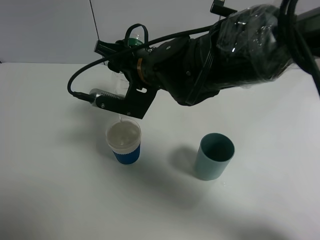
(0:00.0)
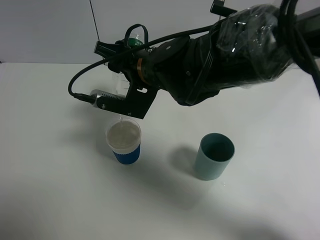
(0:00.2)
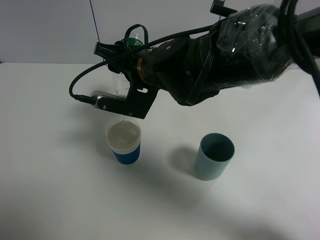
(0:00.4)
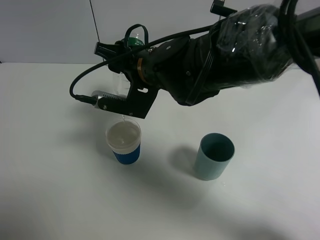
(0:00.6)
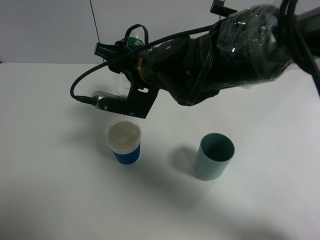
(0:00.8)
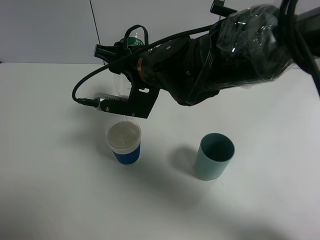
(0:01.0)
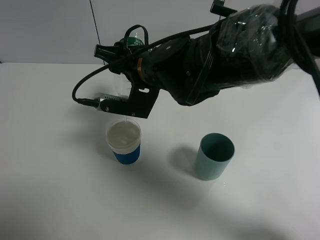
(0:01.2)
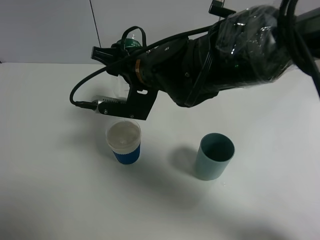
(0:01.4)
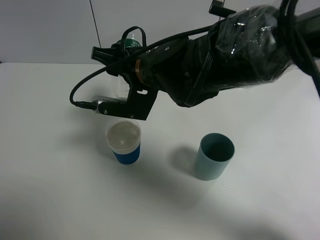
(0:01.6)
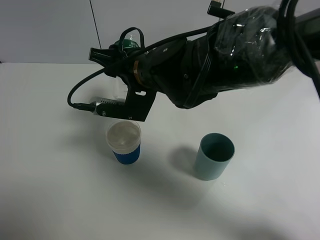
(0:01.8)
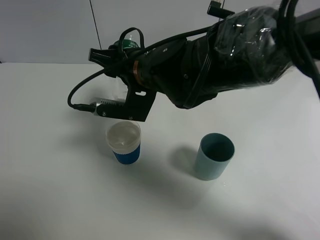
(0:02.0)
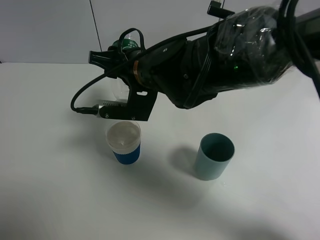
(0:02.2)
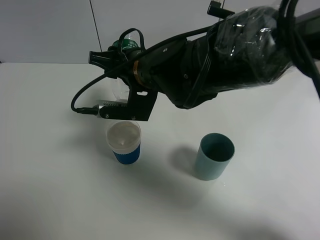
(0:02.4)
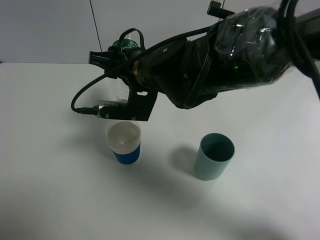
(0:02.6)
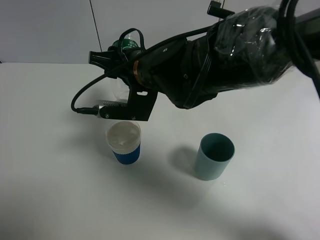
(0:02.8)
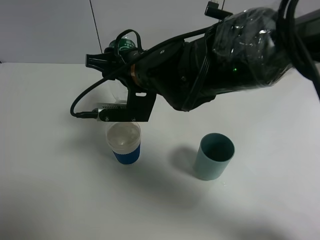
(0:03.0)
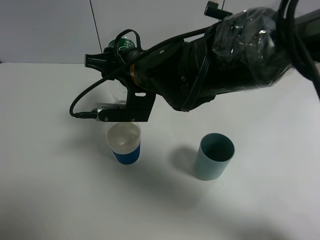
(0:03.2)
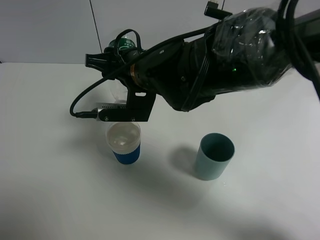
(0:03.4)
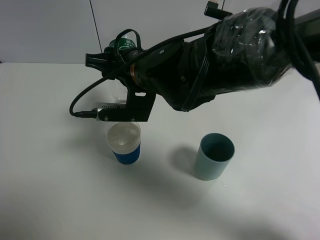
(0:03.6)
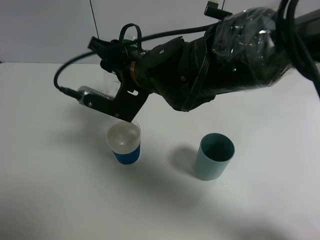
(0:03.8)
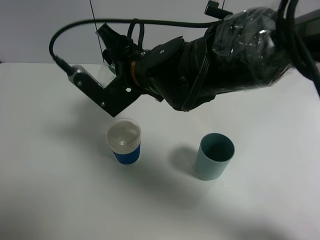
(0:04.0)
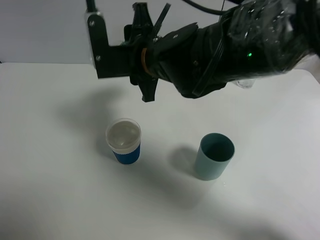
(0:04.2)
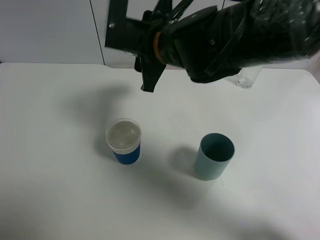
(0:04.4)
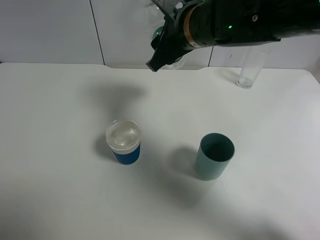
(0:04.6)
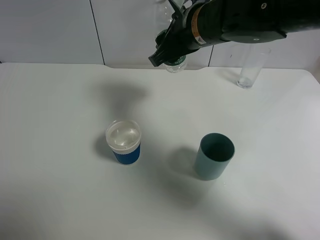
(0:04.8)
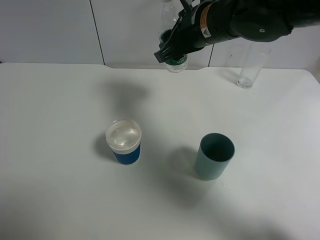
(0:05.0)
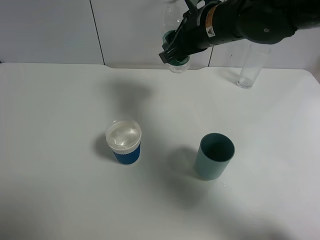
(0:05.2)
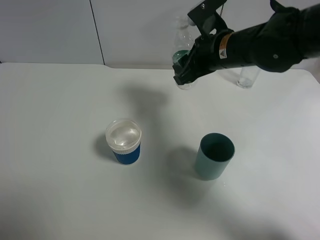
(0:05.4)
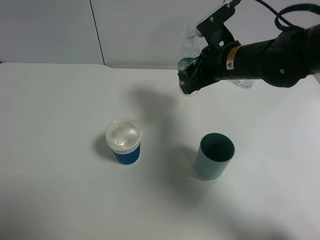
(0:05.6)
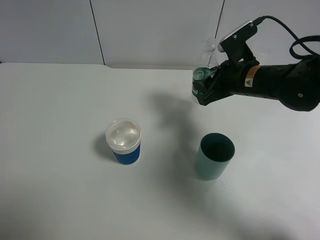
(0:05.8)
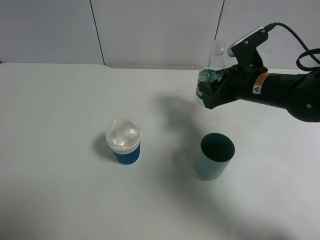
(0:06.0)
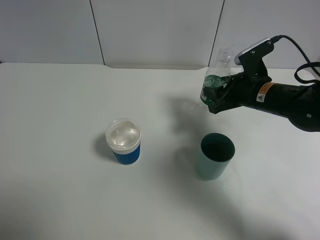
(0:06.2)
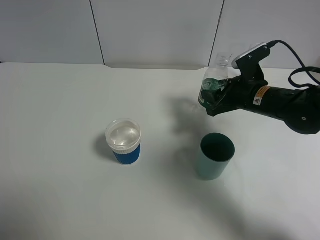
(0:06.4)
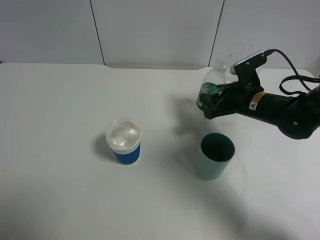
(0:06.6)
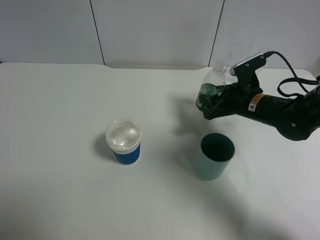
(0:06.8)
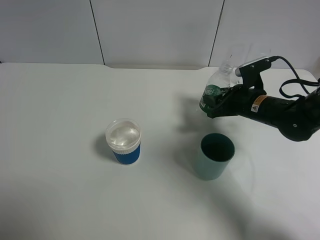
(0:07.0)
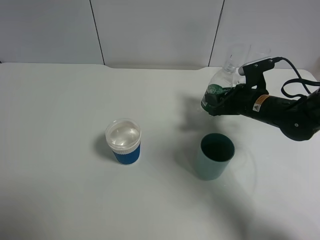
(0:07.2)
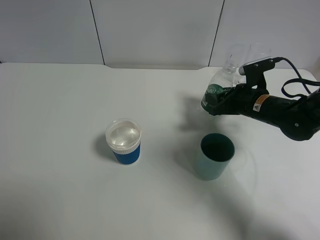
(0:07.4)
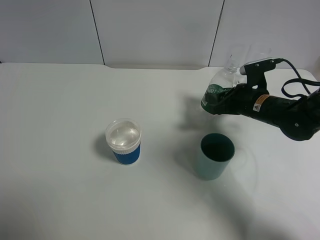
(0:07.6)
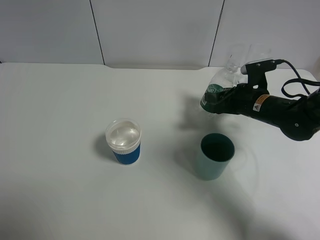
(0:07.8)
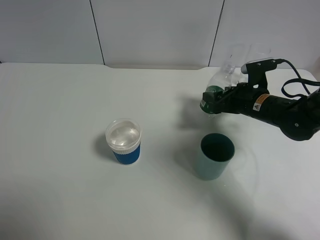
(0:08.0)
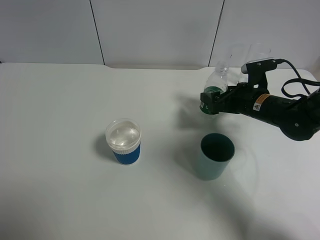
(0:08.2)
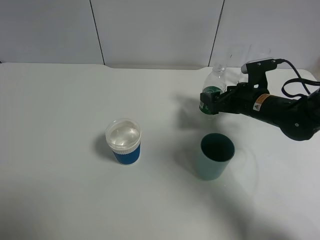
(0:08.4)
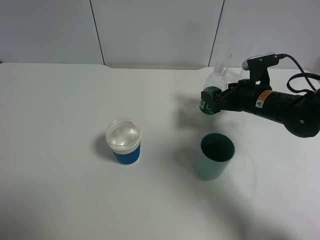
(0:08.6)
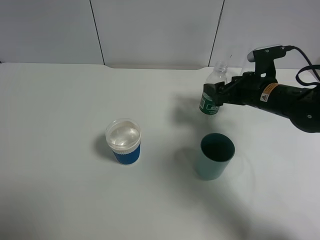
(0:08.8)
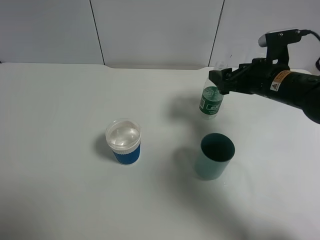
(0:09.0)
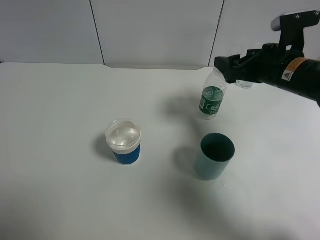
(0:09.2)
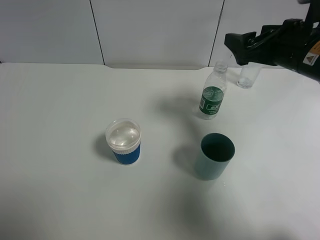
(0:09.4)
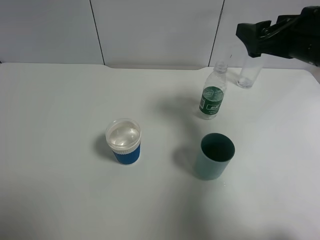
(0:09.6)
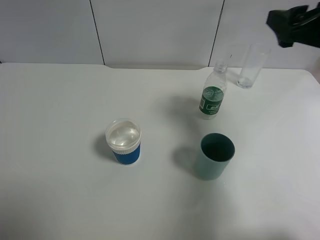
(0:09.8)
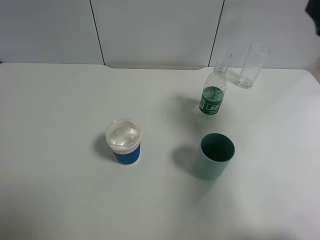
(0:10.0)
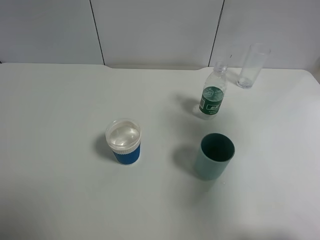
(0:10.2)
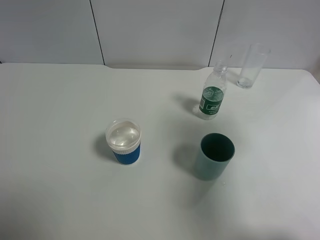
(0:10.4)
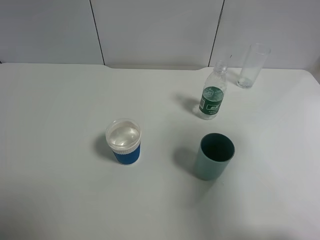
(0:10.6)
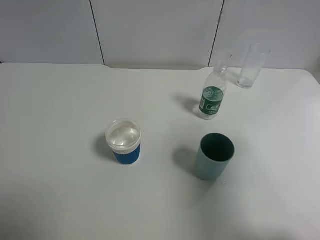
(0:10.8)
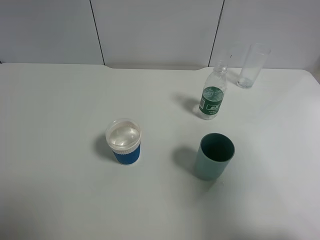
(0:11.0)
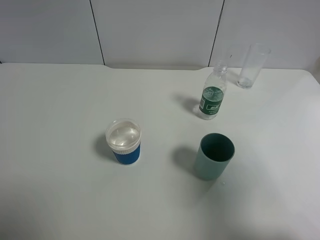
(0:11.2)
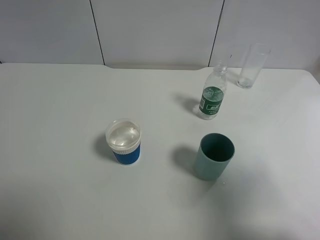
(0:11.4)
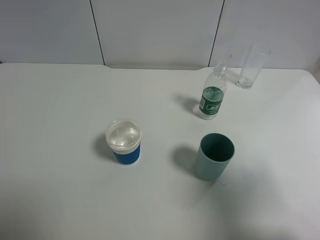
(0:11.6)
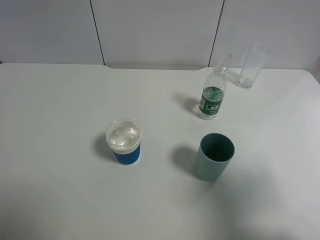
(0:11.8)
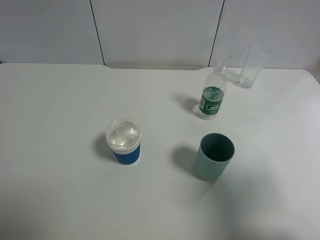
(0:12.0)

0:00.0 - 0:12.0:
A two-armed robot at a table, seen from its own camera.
Task of the whole recording: use a gripper to hold the bottle of the drink and pour it into a random cup.
Step, 0:00.0 - 0:02.8: Pour the mineral water into the paper cup with the right gripper.
Step, 0:03.0 - 0:09.2: Place the mineral water bottle on the table with the right gripper.
0:00.0 - 0:03.0: There are only small adjustments of the grippers.
0:03.0 - 0:04.4: The right gripper changes place by approximately 5 cm.
0:04.4 - 0:06.0: The right gripper goes roughly 20 cm to the right and downward.
0:06.0 - 0:07.6: The right gripper moves downward, roughly 5 cm.
0:07.6 - 0:09.0: The right gripper travels upward by approximately 10 cm, and opens up.
0:09.0 - 0:10.4: The right gripper heads backward, upward and to the right, covering approximately 25 cm.
0:10.4 - 0:12.0: The right gripper goes approximately 10 cm backward.

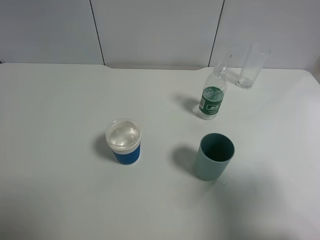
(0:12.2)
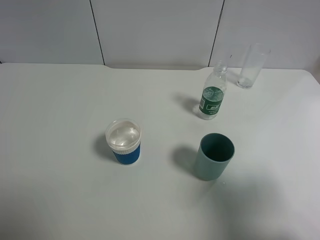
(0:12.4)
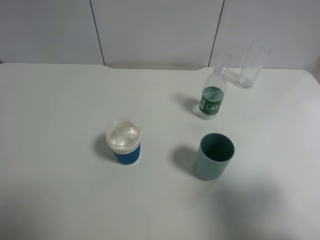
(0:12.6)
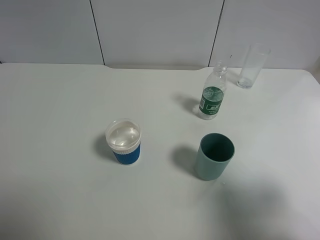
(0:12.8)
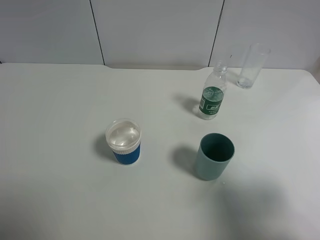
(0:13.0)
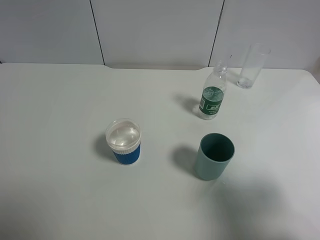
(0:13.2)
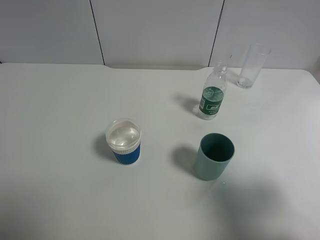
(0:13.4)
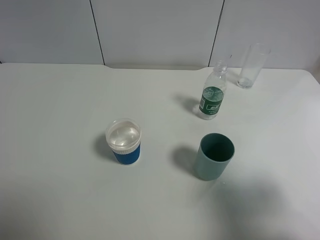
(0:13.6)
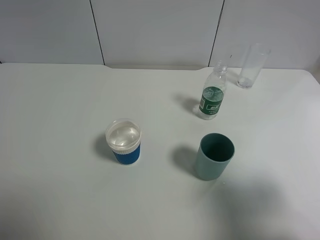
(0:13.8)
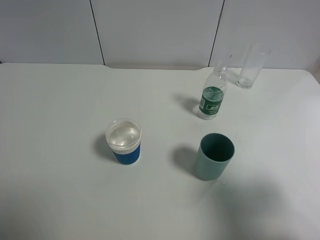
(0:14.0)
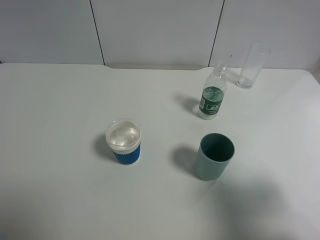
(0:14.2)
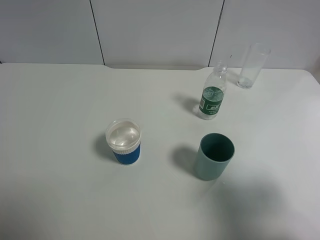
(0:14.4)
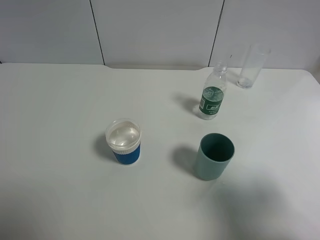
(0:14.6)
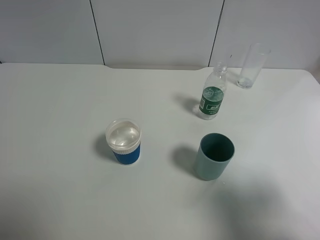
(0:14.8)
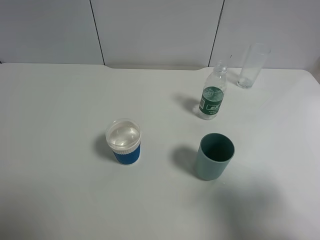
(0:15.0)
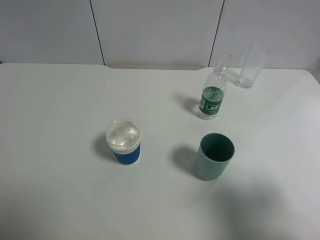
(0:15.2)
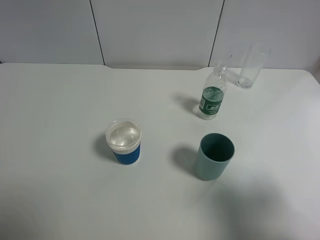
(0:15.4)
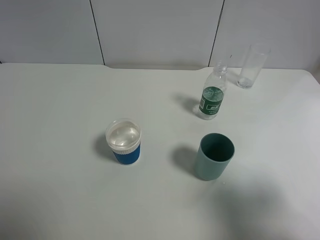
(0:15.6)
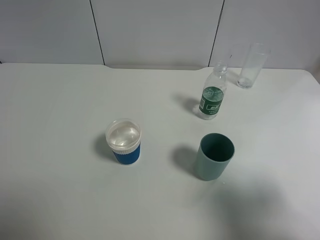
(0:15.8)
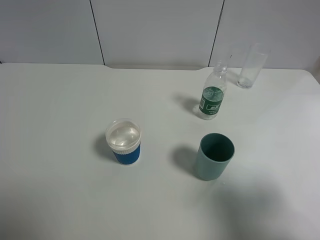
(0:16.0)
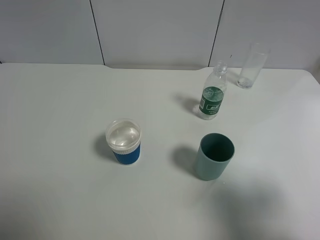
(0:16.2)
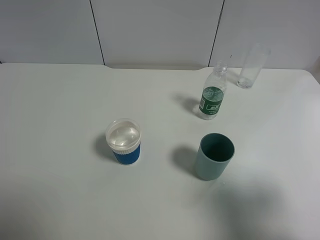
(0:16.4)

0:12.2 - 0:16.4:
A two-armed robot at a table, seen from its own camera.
Task of the whole recording: use a gripper to hold the bottle of the drink and pour it into a random cup.
0:13.6 - 0:15.0: Neither gripper changes place.
0:15.0 - 0:16.4: Both grippers stay about where they are.
